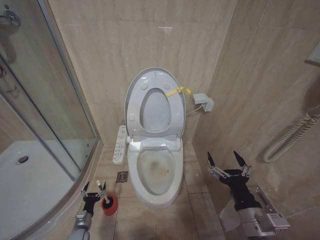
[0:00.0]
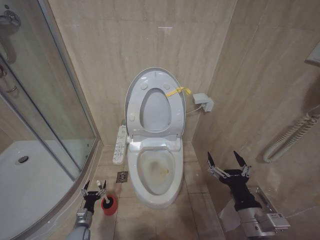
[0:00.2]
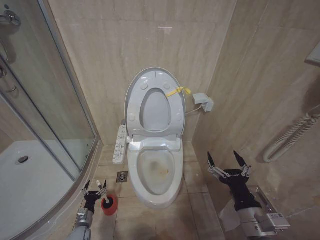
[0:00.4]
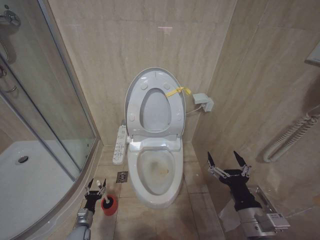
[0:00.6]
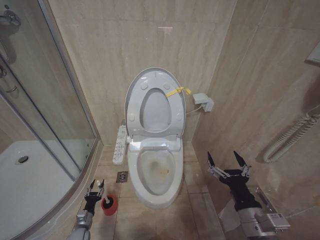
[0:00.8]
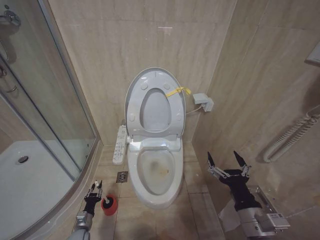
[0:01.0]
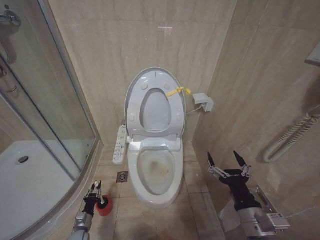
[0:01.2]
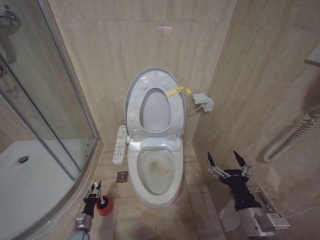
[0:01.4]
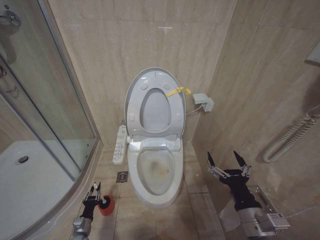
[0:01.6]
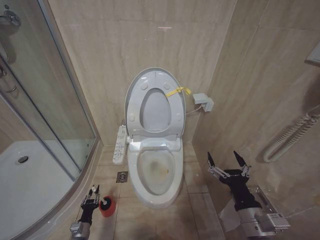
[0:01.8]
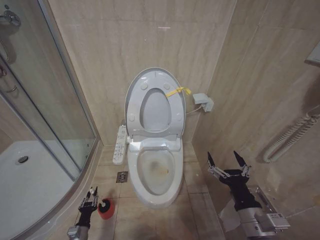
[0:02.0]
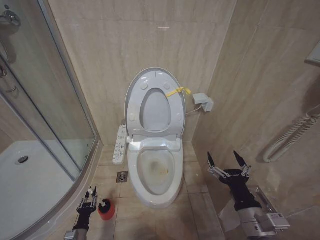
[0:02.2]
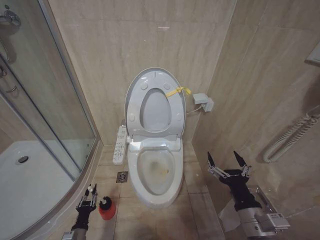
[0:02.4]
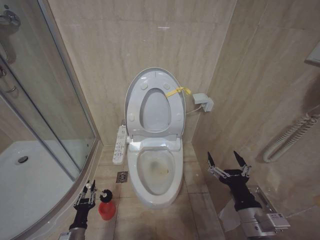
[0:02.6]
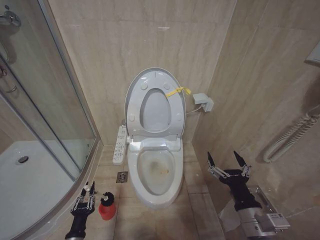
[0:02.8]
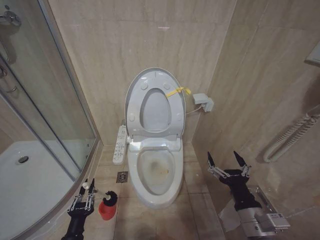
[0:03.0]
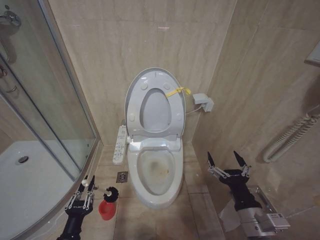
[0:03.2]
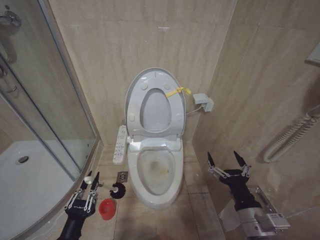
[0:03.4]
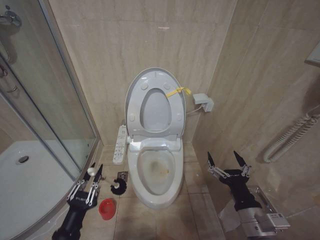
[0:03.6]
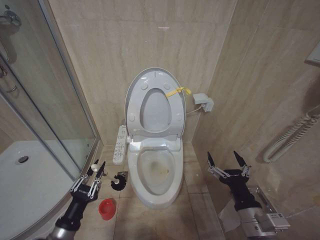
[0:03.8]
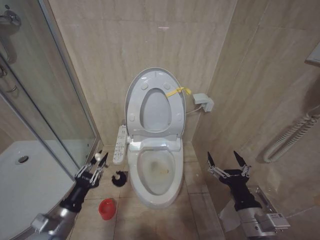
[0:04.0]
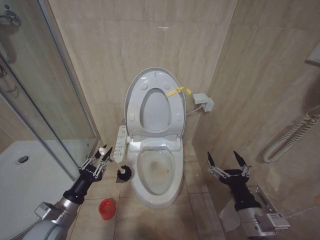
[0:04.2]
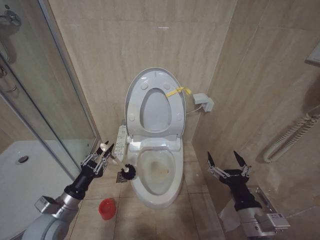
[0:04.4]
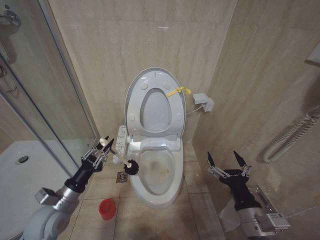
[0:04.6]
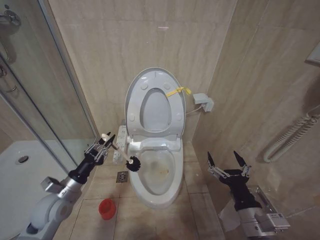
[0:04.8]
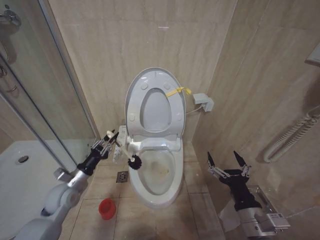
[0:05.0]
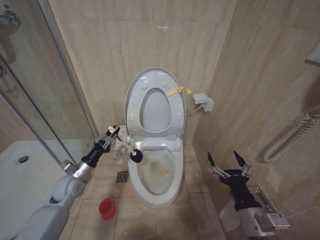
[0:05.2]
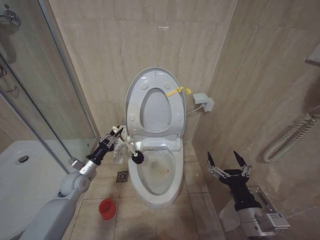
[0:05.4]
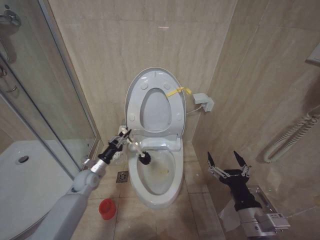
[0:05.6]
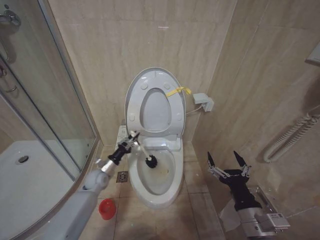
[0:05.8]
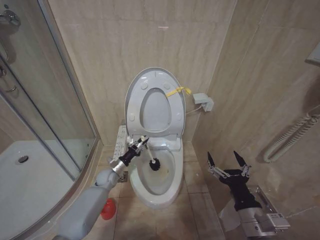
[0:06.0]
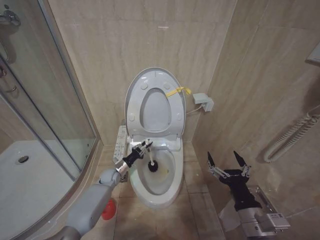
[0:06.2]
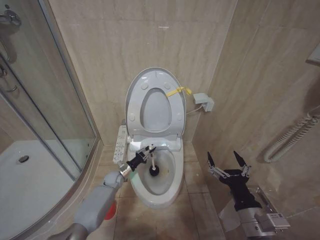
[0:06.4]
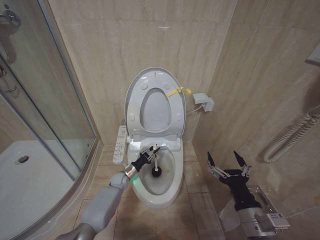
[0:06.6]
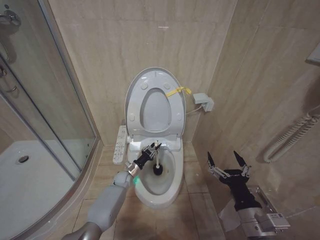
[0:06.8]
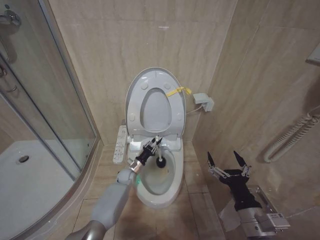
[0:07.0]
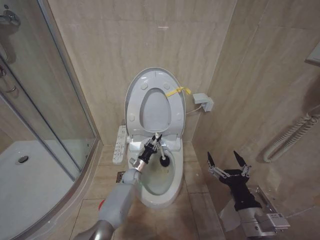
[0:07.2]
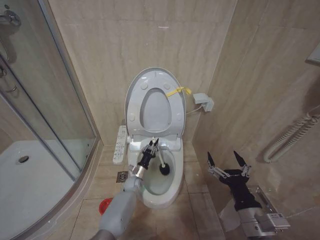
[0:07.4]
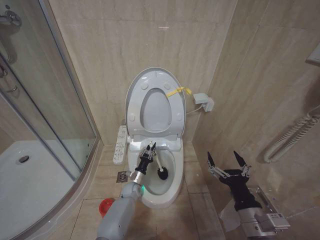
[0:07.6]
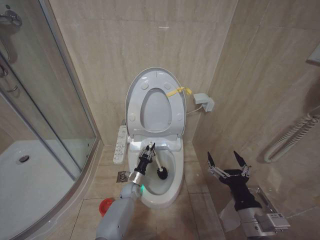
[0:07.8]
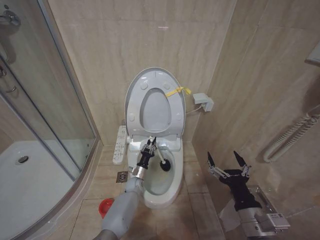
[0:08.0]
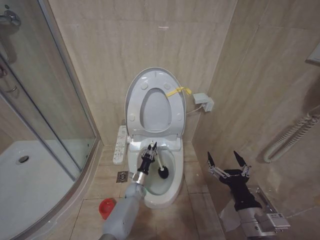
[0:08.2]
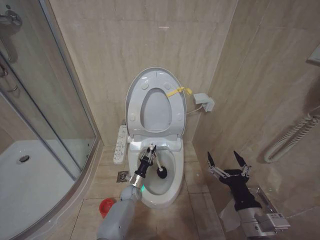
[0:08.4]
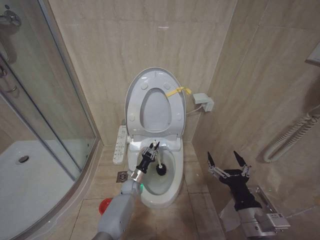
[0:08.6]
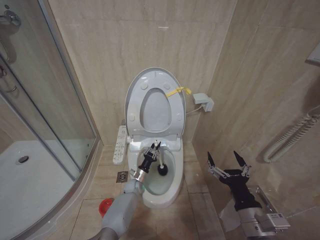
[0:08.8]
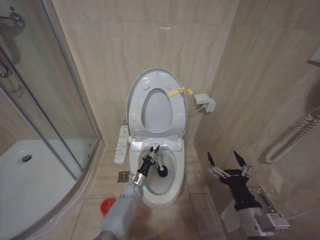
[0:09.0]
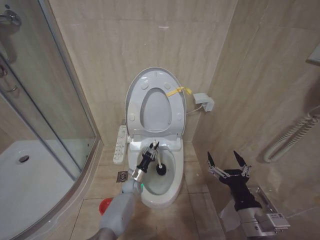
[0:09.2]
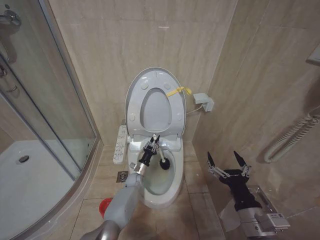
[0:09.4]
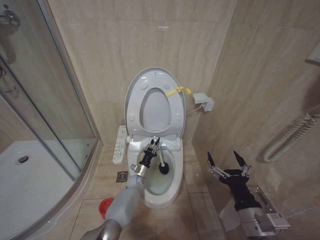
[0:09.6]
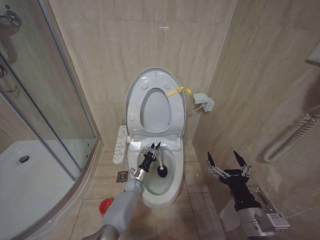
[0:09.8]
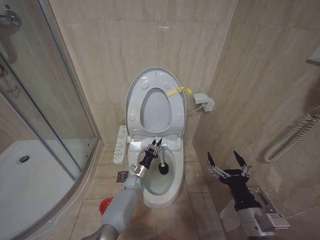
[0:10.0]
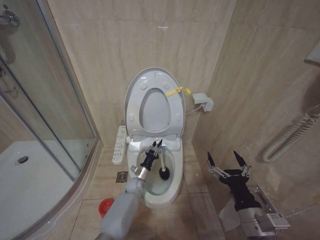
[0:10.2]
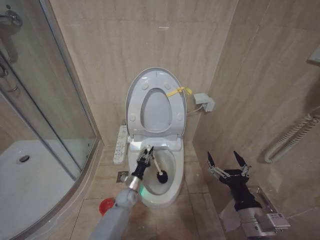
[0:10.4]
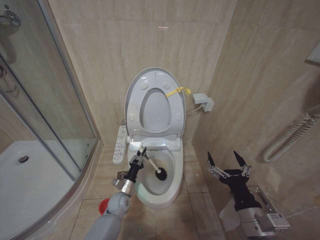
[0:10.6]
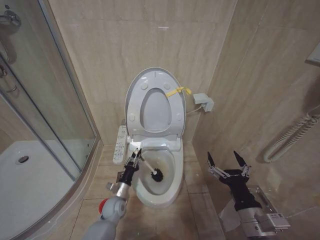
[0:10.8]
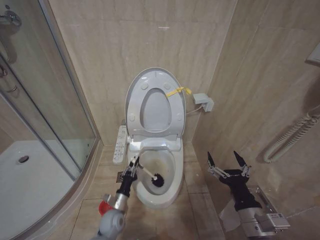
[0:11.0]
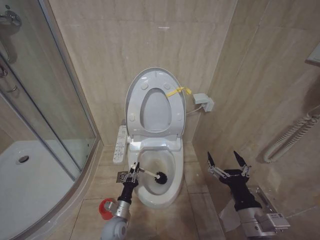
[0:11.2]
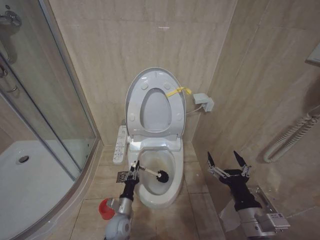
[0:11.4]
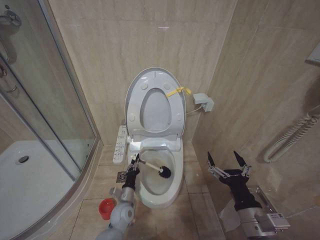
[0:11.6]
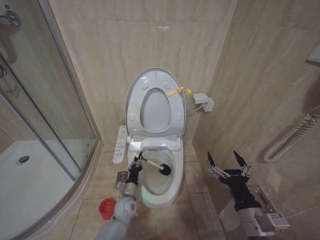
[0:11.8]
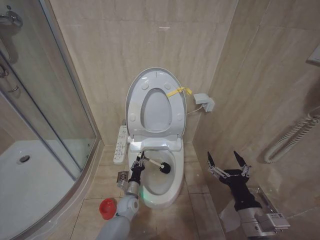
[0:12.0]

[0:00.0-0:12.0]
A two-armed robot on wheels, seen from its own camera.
Task of the whole recording: Open the toilet lid, clean the toilet bowl with a toilet brush, close the toilet lid, and flush.
0:00.0 to 0:01.6: The left gripper closes its fingers.
0:01.6 to 0:03.0: The left gripper travels upward and backward by approximately 20 cm.
0:03.0 to 0:04.4: The left gripper heads upward and forward, covering roughly 15 cm.
0:04.4 to 0:06.0: The left gripper goes about 25 cm forward and downward.
0:06.0 to 0:07.6: The left gripper shifts approximately 15 cm to the right and downward.
0:07.6 to 0:09.0: The grippers stay close to where they were, moving slightly.
0:09.0 to 0:10.4: The left gripper moves approximately 5 cm.
0:10.4 to 0:12.0: The left gripper moves backward, approximately 5 cm.

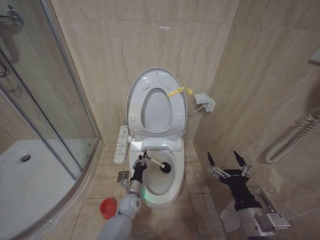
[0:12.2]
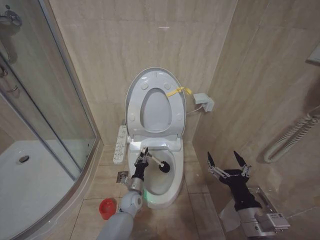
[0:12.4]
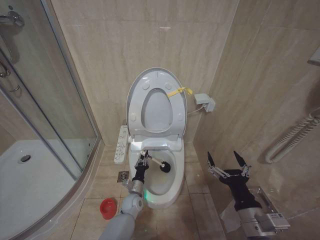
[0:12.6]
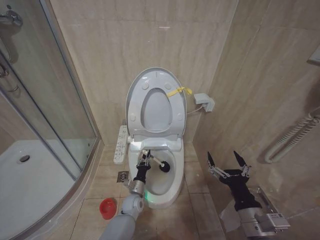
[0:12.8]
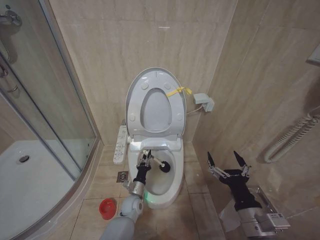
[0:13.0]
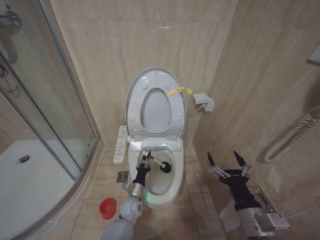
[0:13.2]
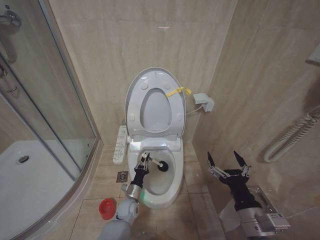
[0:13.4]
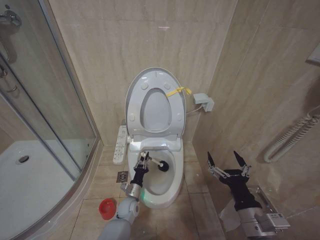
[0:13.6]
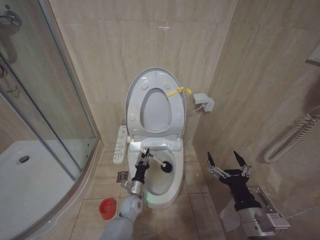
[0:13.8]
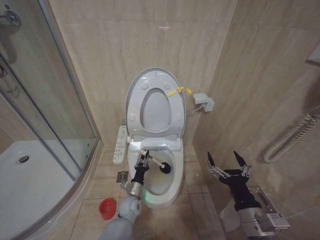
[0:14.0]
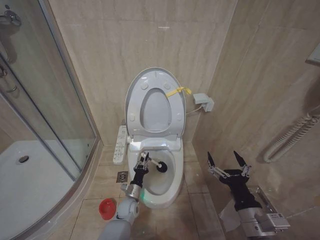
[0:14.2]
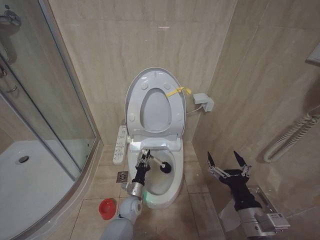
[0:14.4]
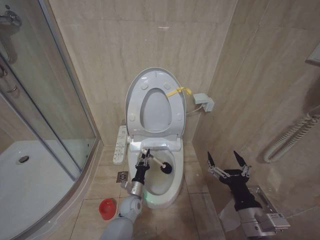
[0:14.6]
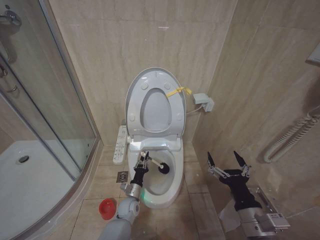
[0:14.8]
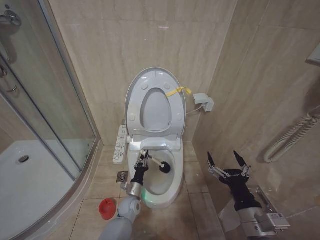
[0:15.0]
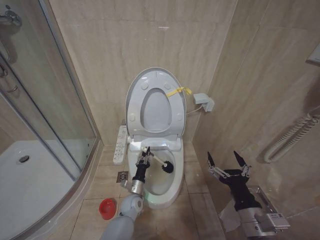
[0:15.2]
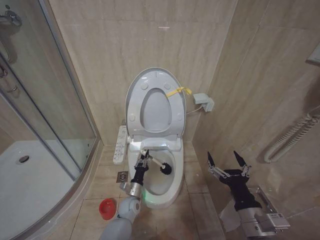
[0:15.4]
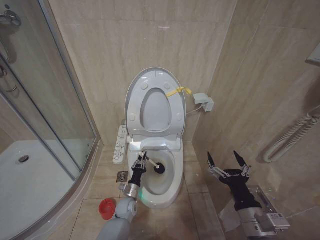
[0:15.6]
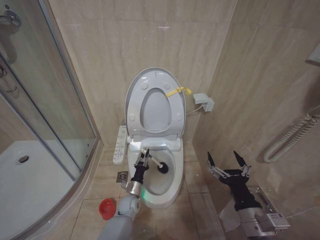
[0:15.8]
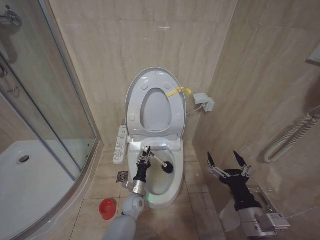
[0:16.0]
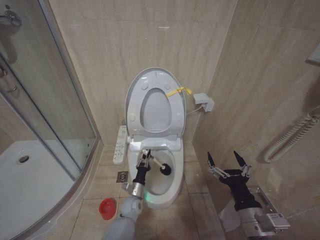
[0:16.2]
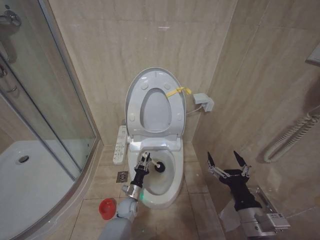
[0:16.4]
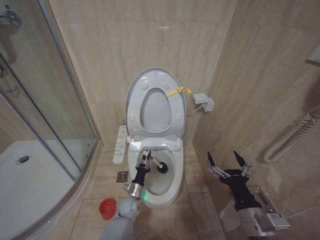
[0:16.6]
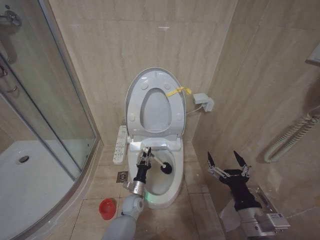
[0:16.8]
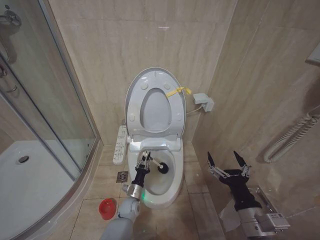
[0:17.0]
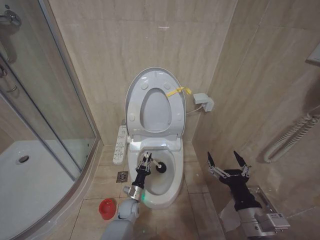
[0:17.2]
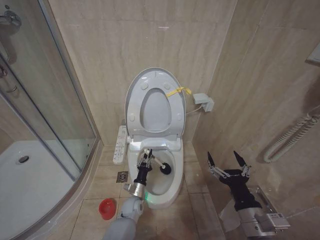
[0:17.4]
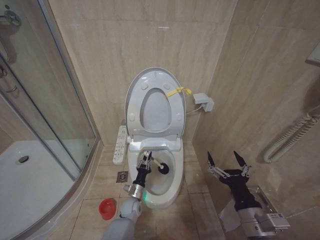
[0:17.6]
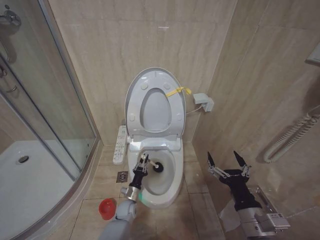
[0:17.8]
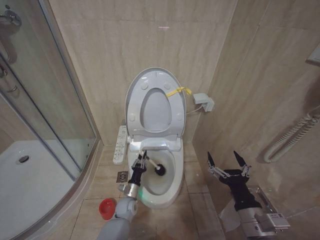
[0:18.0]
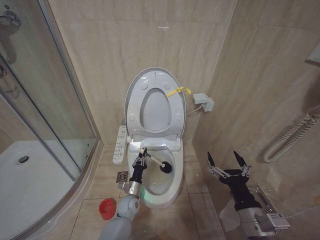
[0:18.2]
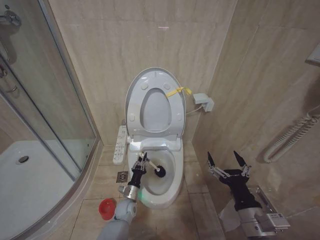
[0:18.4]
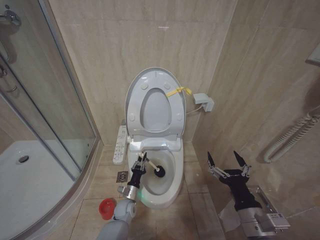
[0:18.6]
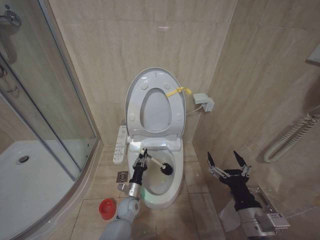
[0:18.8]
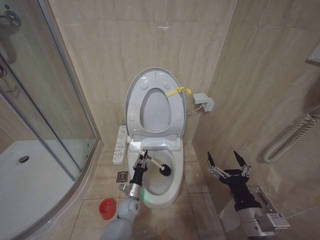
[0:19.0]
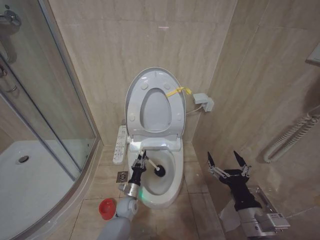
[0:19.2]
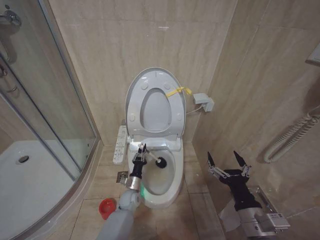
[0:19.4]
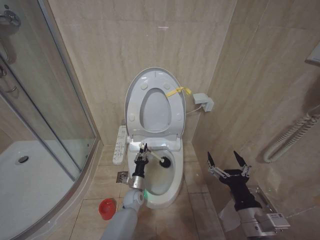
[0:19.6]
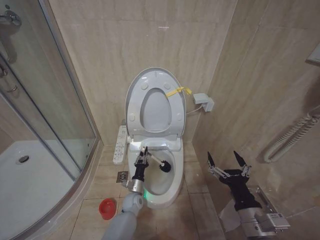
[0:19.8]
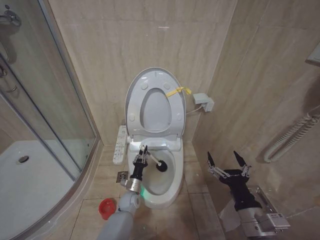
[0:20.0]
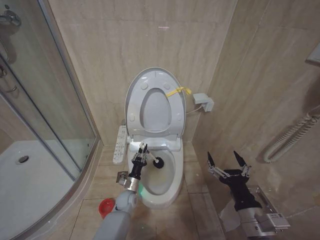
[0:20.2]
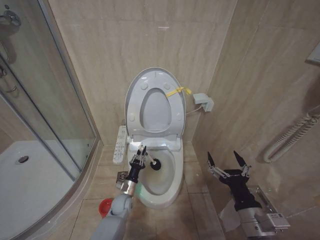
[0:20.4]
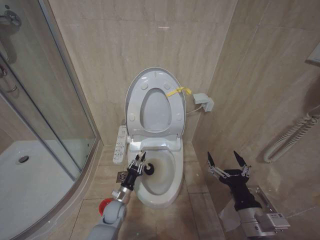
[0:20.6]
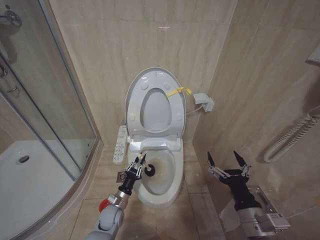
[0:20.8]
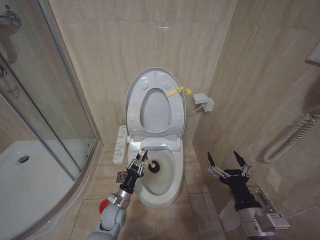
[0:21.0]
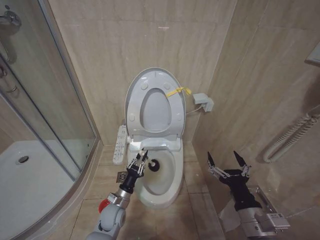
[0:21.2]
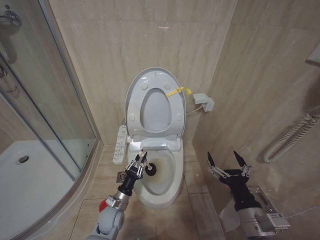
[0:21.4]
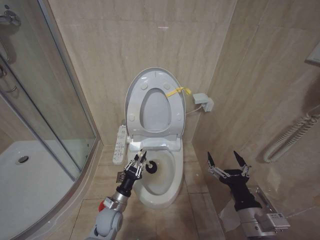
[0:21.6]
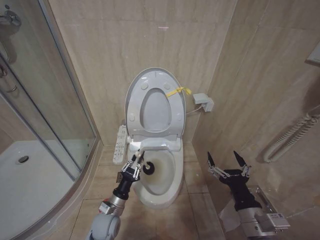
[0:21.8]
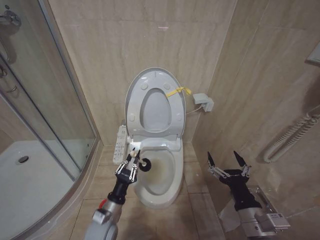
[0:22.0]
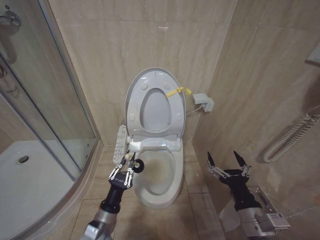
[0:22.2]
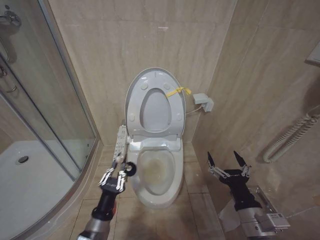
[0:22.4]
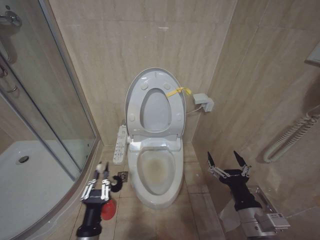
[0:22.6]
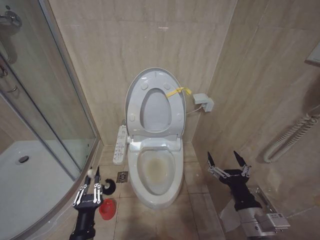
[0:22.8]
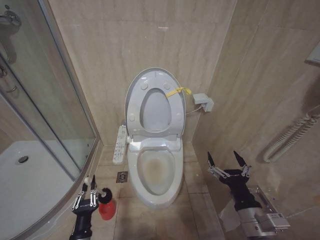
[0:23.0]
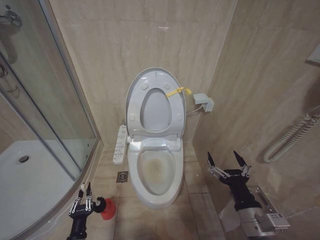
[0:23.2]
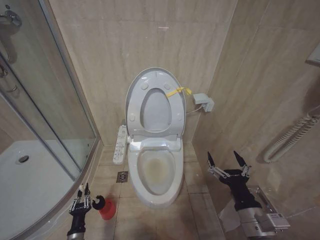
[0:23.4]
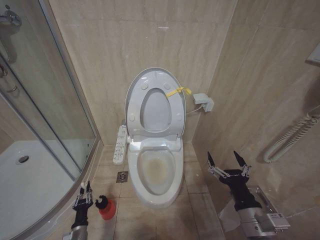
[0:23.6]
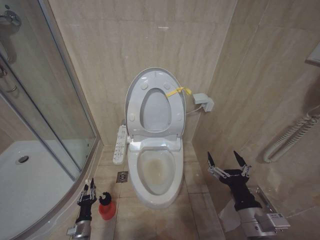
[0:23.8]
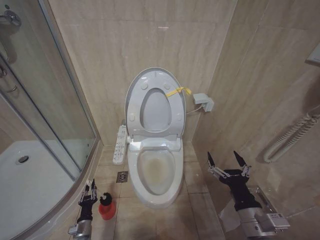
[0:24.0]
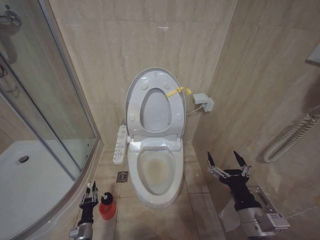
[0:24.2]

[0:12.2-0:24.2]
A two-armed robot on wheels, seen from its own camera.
Task of the whole recording: Open the toilet lid, clean the toilet bowl with a toilet brush, close the toilet lid, and flush.
0:12.2 to 0:13.8: The grippers stay close to where they were, moving slightly.
0:19.8 to 0:21.2: The left gripper is displaced backward, upward and to the left by about 10 cm.
0:21.2 to 0:22.6: The left gripper heads backward and upward, covering roughly 20 cm.
0:22.6 to 0:24.2: The left gripper shifts roughly 30 cm downward and to the left.
